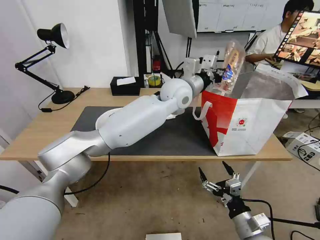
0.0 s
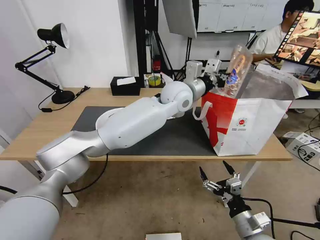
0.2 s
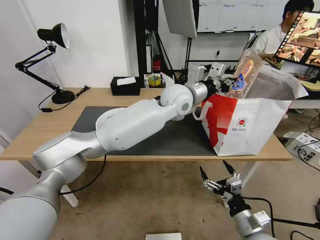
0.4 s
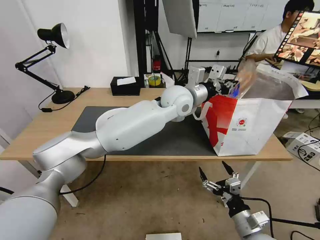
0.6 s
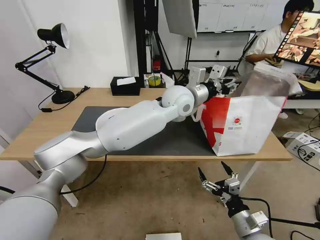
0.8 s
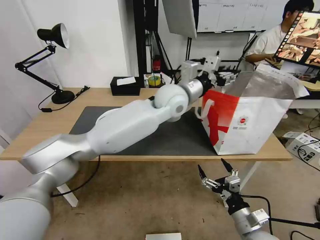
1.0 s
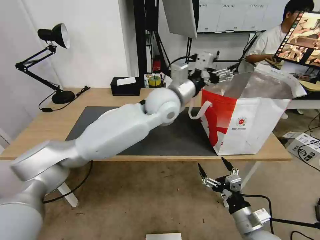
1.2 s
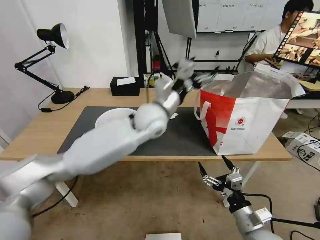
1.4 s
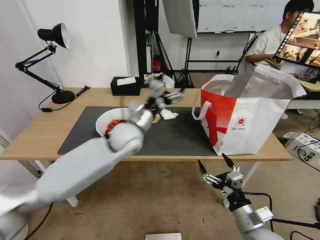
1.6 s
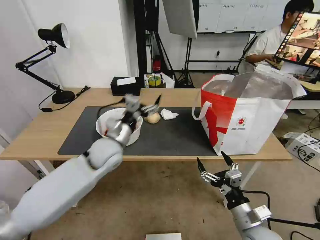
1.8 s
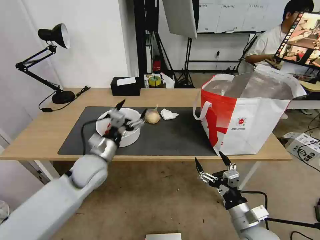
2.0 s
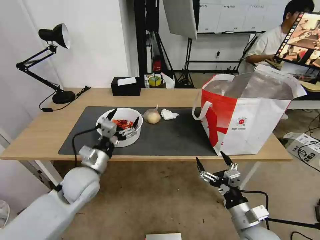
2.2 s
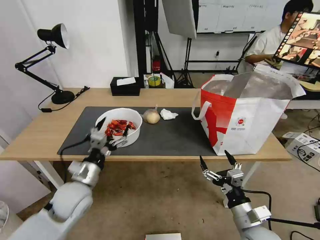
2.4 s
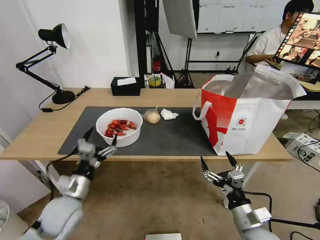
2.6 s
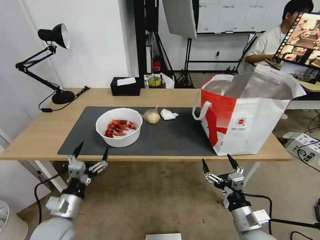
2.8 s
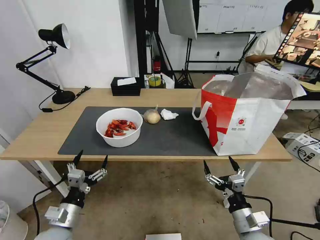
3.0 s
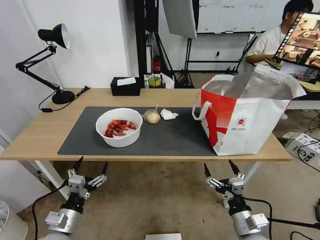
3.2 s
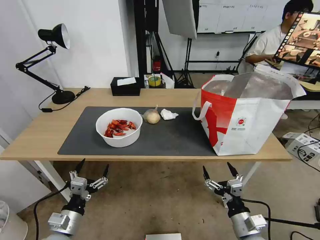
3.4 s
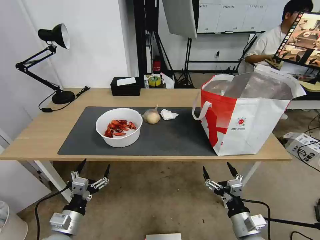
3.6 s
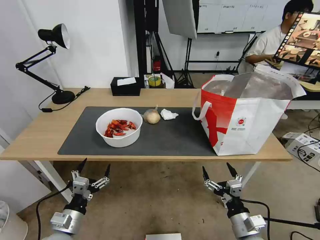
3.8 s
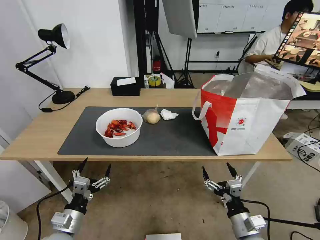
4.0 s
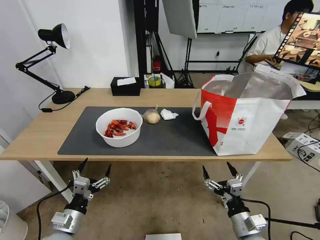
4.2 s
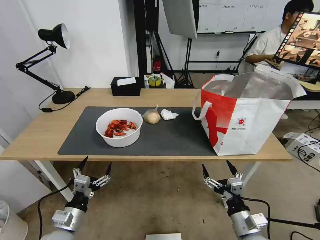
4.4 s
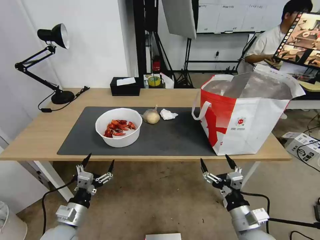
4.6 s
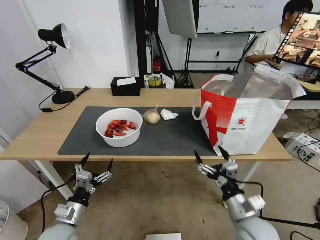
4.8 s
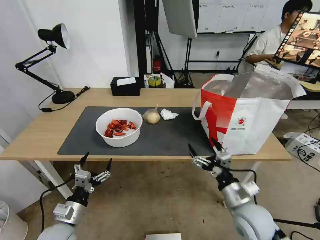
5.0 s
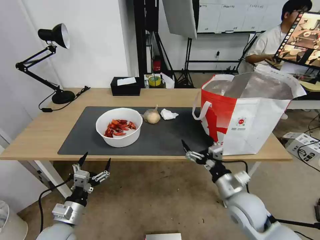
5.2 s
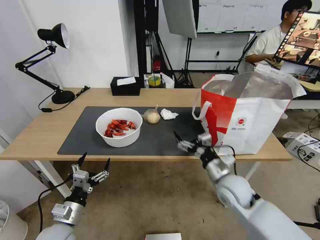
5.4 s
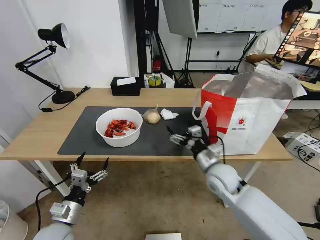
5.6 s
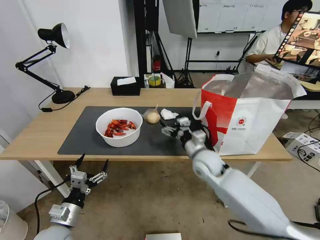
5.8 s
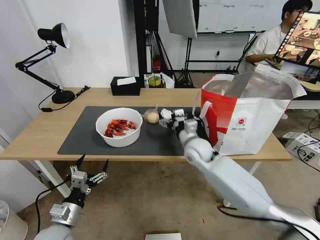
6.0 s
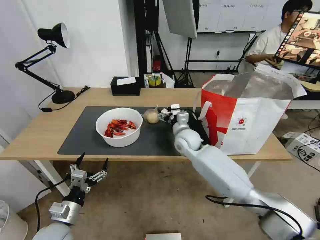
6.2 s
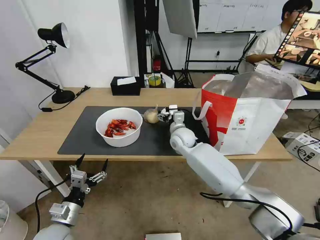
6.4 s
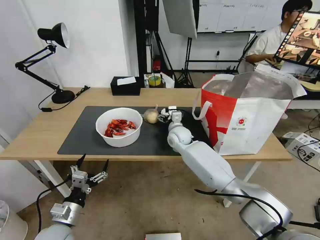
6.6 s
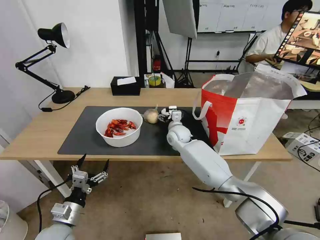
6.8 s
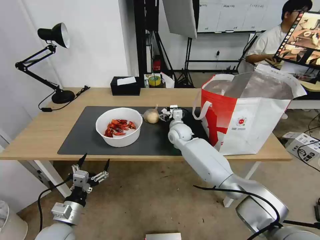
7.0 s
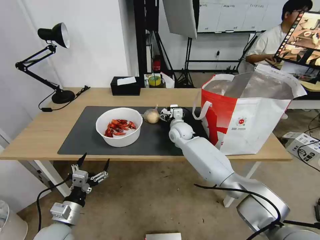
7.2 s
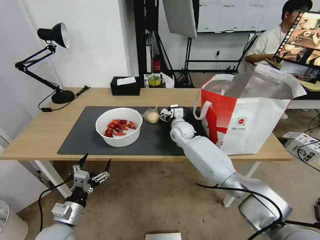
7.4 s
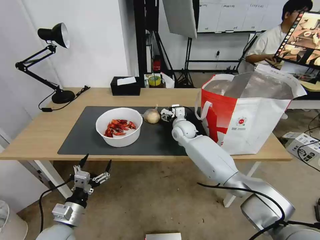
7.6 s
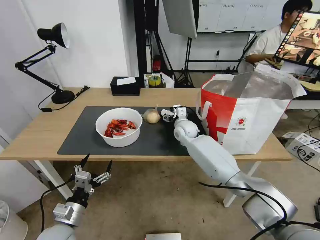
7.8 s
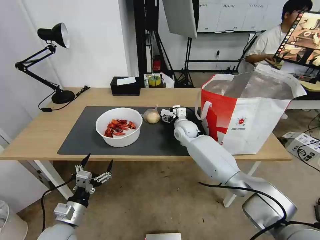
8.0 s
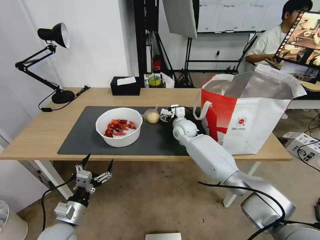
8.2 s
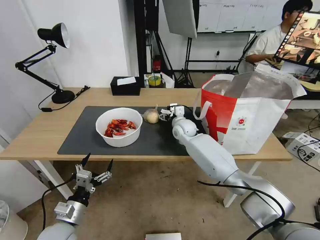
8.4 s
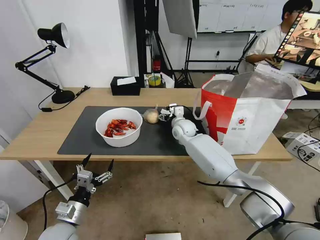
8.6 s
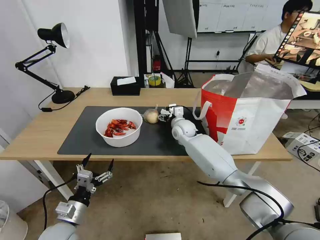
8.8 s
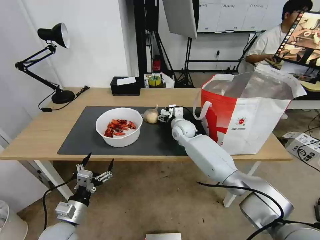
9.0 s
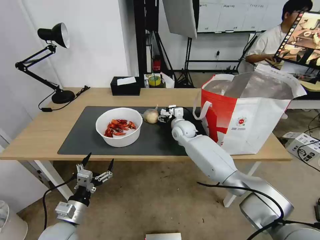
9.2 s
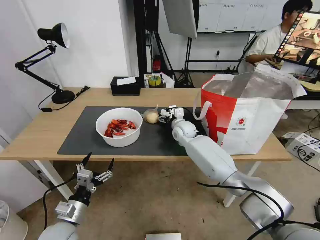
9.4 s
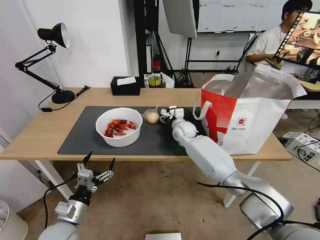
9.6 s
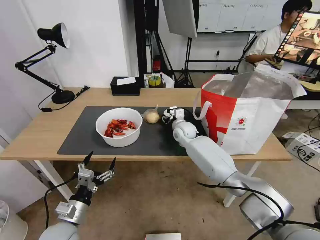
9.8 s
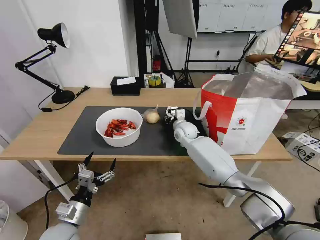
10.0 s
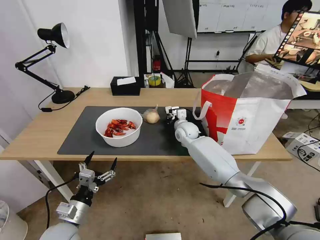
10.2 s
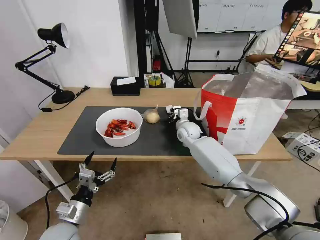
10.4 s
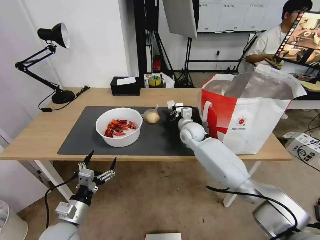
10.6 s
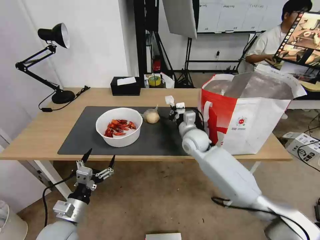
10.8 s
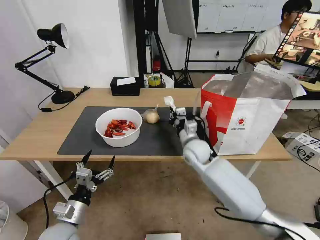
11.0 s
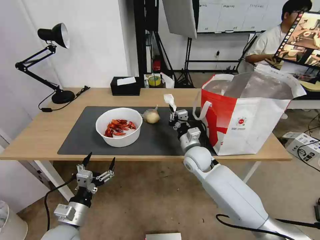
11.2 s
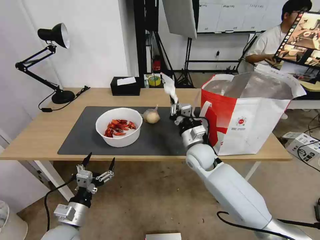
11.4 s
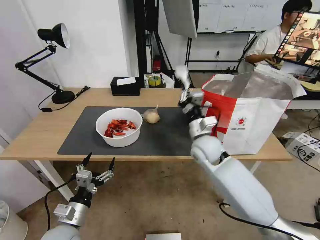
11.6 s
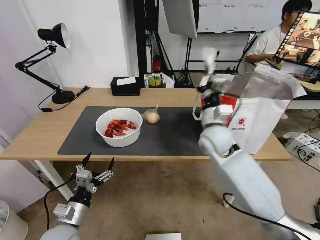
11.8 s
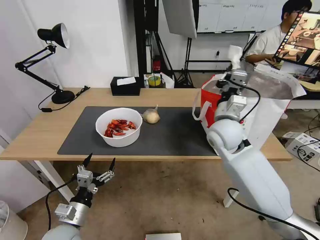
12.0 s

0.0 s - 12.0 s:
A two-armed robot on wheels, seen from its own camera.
Task of the whole recording: Pick up the trash from the table and place it into the takeout bag.
0.0 s - 1.6 s: The left gripper goes roughly 20 cm to the left, downward and backward, and opens its fingers.
1.6 s - 3.0 s: The left gripper moves backward, to the left and downward, some 35 cm.
3.0 s - 4.4 s: The grippers make only small movements.
4.4 s - 6.0 s: The right gripper moves forward and to the left, about 35 cm.
6.0 s - 7.6 s: The right gripper is displaced forward by about 10 cm.
7.6 s - 9.0 s: The grippers make only small movements.
9.0 s - 10.4 s: The right gripper closes up.
10.4 s - 12.0 s: The right gripper goes some 20 cm upward, backward and to the right.

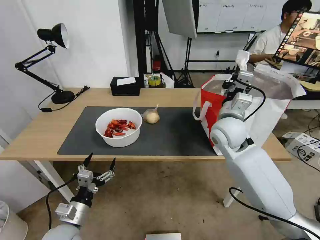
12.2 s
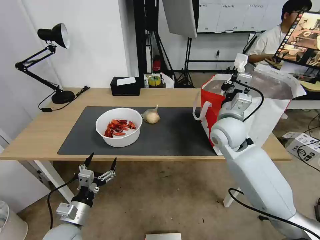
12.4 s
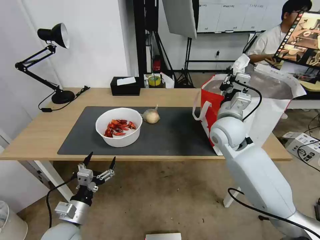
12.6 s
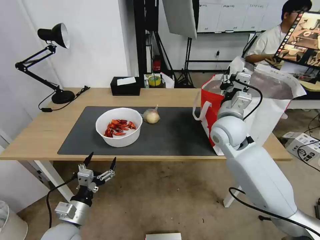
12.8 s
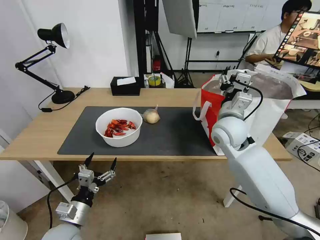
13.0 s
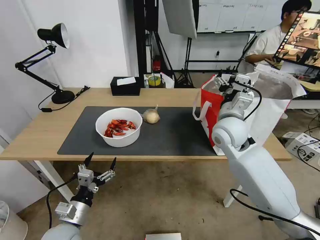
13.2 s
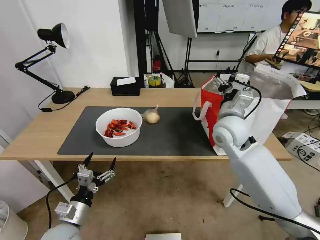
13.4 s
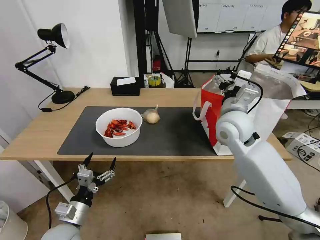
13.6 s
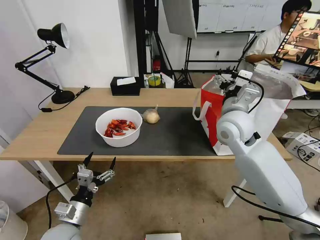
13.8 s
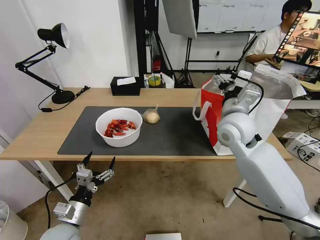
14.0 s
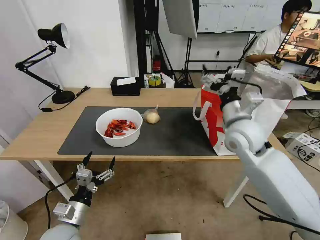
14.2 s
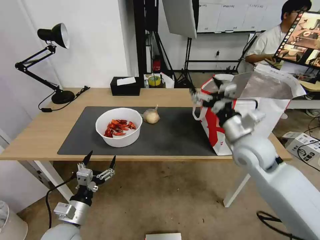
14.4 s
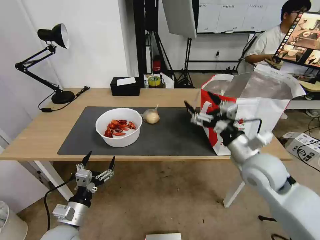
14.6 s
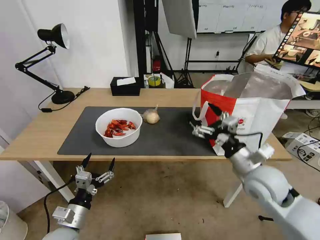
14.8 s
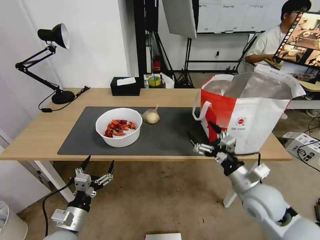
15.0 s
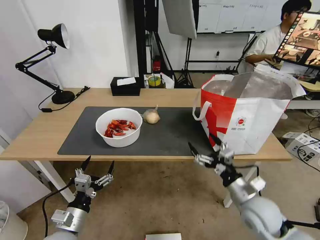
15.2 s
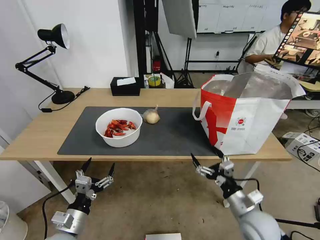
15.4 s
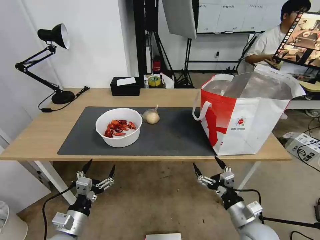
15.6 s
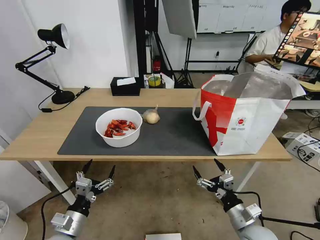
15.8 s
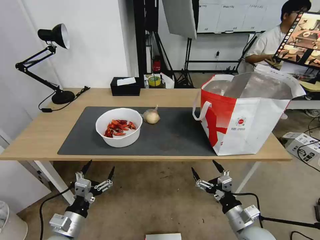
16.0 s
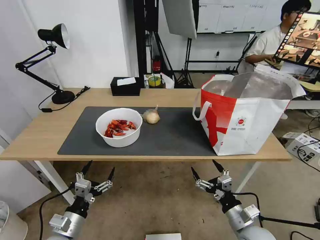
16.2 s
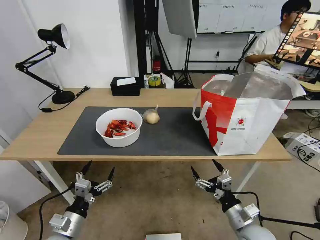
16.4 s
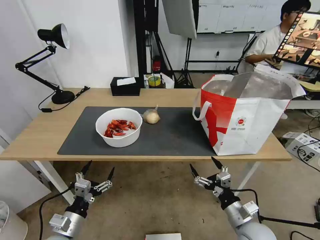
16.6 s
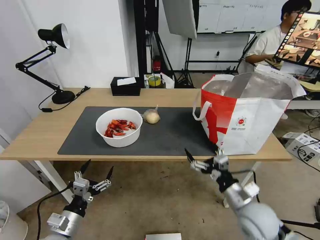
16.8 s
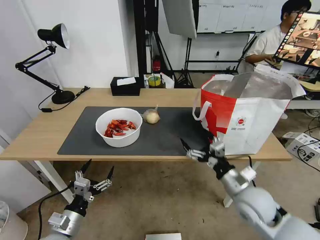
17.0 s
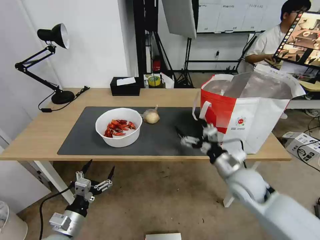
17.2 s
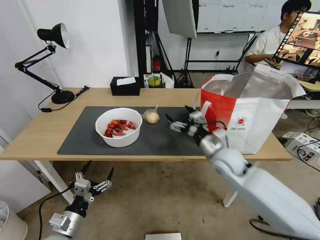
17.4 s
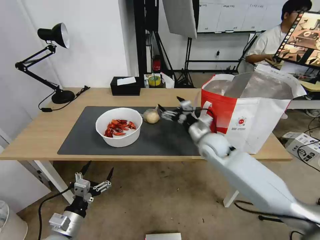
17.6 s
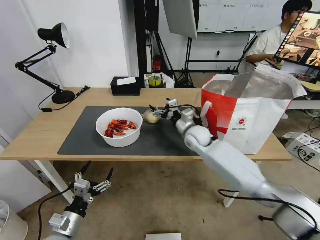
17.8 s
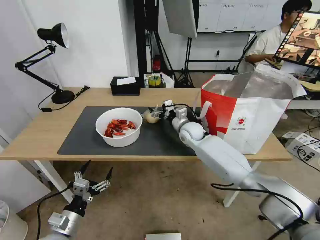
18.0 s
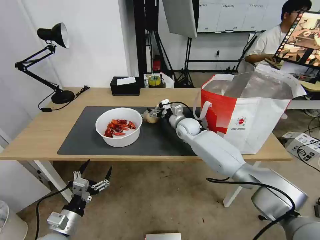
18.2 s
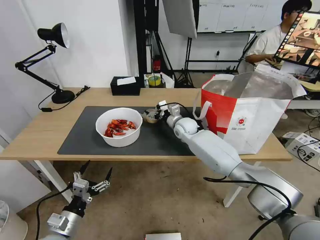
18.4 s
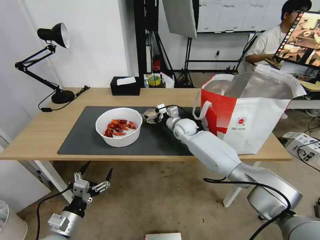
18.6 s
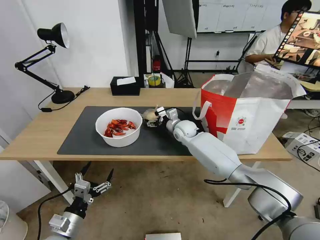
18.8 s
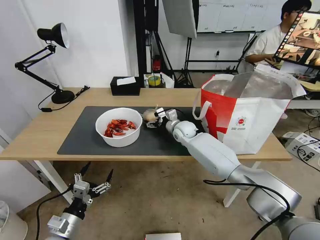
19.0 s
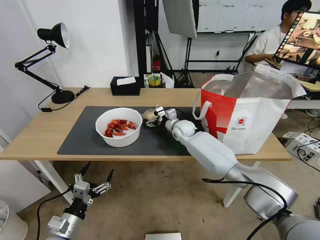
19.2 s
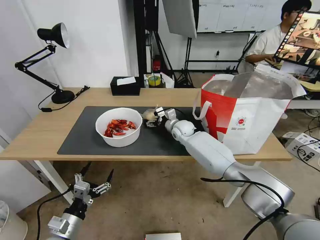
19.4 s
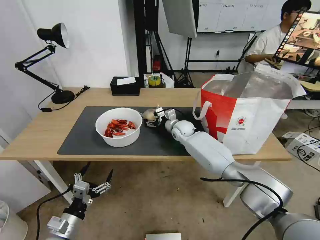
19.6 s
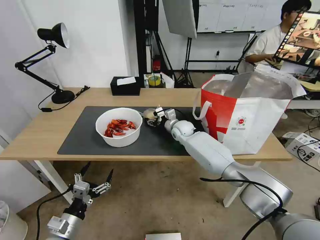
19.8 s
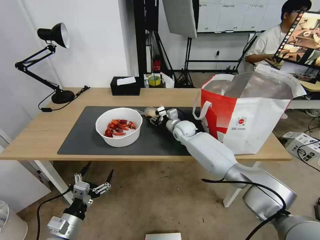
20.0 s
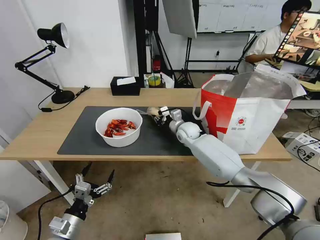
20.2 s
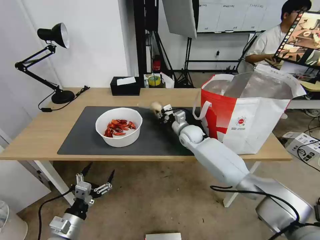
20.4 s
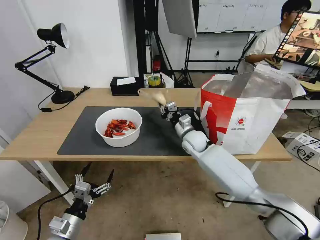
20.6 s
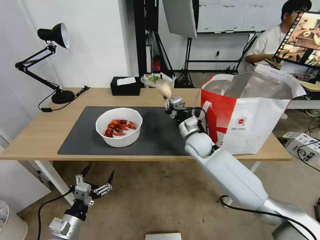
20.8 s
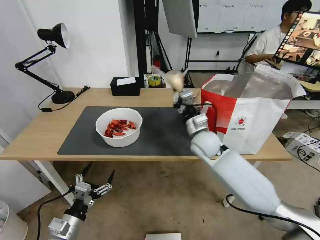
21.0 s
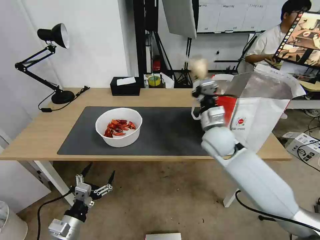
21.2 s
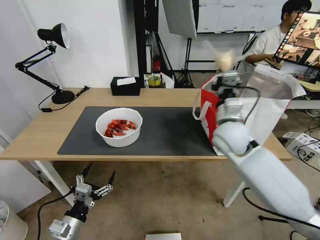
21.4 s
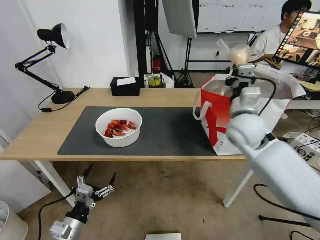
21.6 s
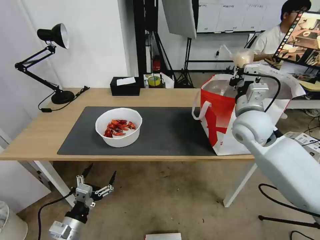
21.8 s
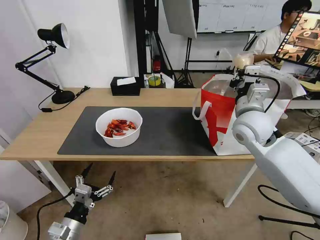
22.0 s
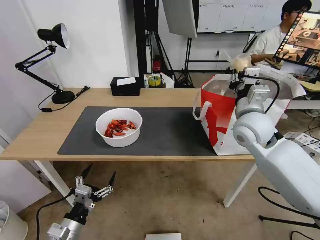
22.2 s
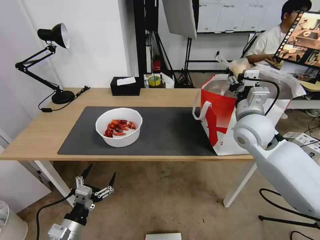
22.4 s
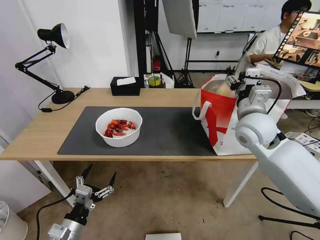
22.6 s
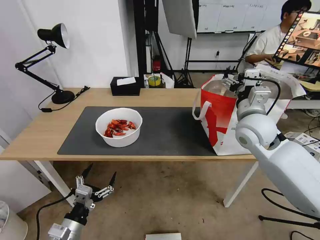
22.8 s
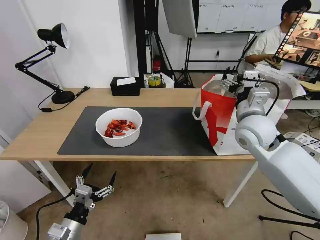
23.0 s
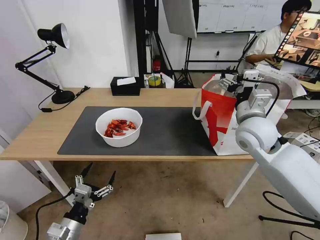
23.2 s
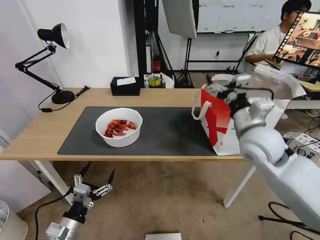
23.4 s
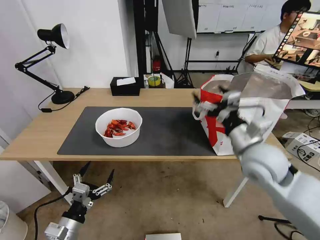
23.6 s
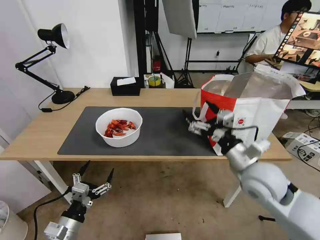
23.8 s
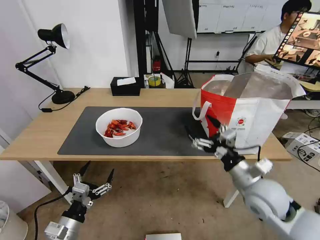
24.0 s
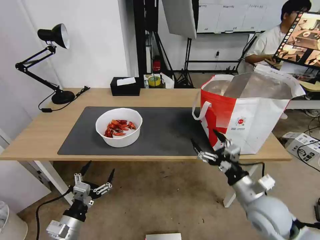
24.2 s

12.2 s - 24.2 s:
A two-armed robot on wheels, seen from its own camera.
Task of the whole recording: Pick up the trash from the table and place it into the takeout bag.
12.2 s - 13.8 s: The right gripper opens.
13.8 s - 15.2 s: The right gripper shifts some 25 cm downward, backward and to the right.
15.2 s - 16.6 s: The right gripper shifts roughly 10 cm downward and backward.
16.6 s - 18.2 s: The right gripper travels forward and to the left by roughly 40 cm.
18.2 s - 19.8 s: The right gripper closes.
19.8 s - 21.2 s: The right gripper shifts roughly 20 cm backward, upward and to the right, and closes up.
21.2 s - 22.6 s: The right gripper travels to the right and upward by roughly 10 cm, and opens.
22.6 s - 24.2 s: The right gripper moves backward and downward, about 20 cm.
